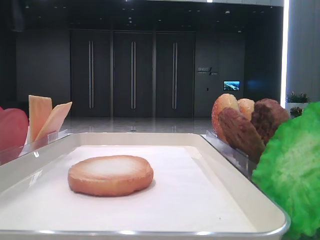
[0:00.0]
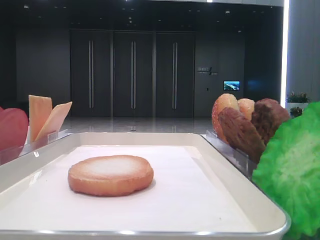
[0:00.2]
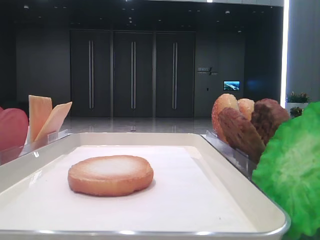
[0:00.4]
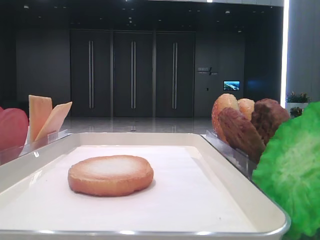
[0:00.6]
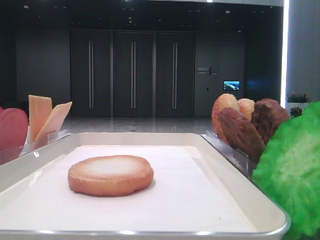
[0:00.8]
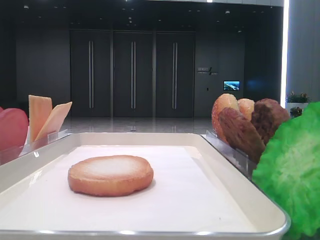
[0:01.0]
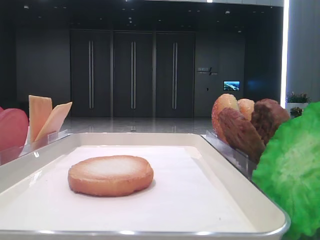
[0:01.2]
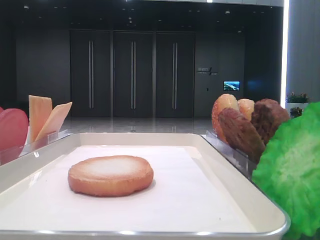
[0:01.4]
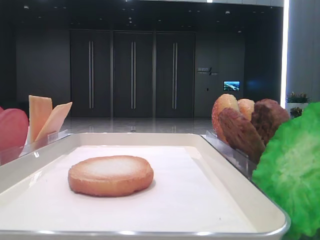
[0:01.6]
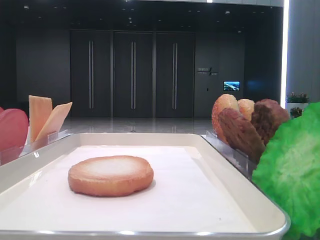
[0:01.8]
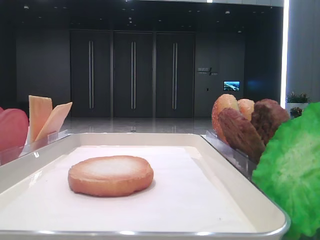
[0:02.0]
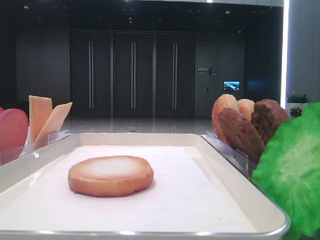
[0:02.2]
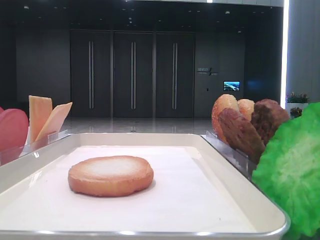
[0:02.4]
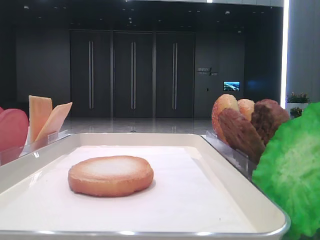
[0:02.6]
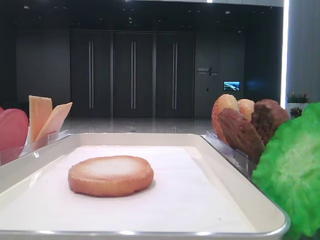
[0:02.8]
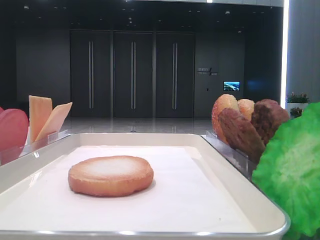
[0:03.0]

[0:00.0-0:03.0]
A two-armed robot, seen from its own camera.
0:00.0 to 0:01.6: The left gripper moves backward and to the left, some 20 cm.
